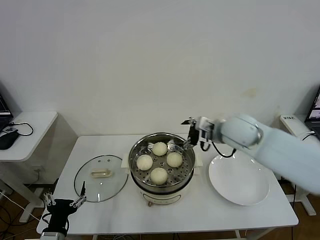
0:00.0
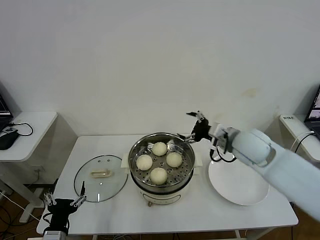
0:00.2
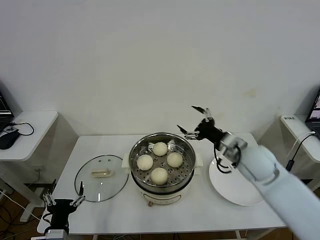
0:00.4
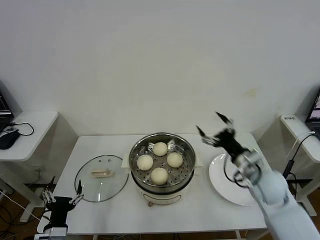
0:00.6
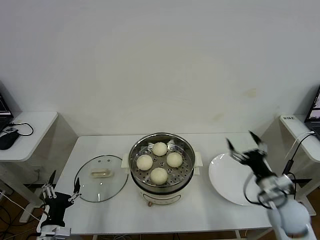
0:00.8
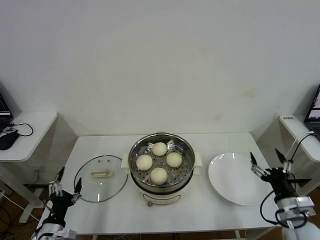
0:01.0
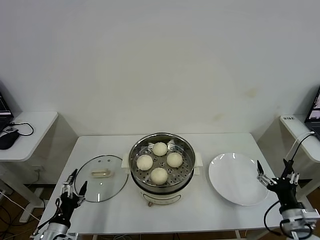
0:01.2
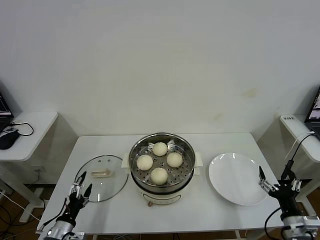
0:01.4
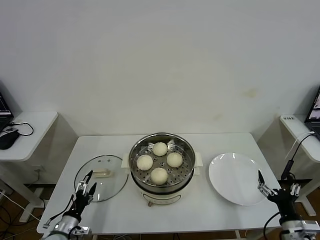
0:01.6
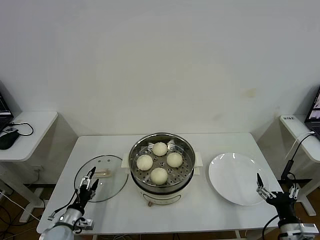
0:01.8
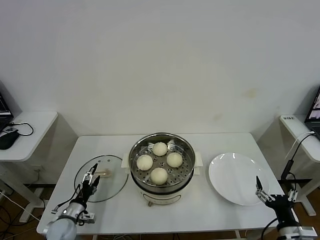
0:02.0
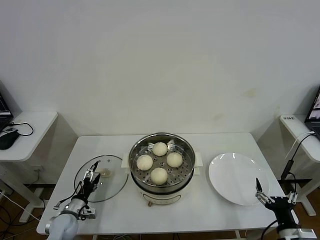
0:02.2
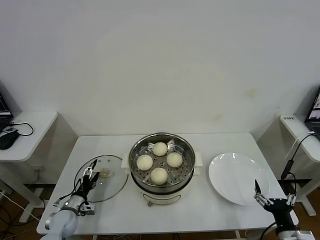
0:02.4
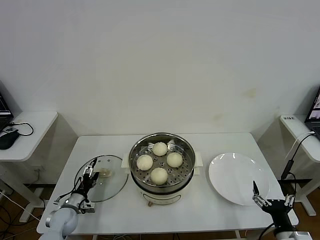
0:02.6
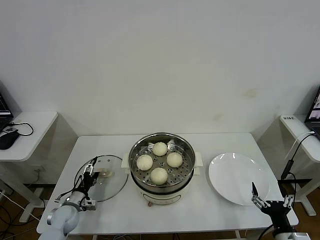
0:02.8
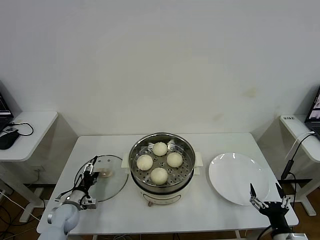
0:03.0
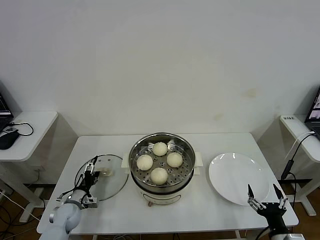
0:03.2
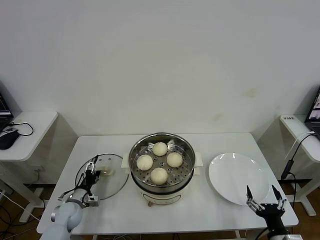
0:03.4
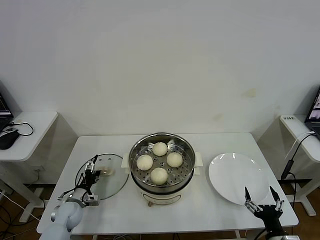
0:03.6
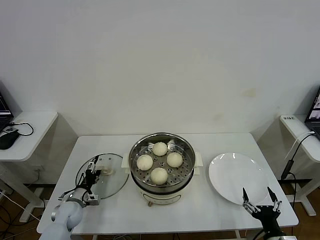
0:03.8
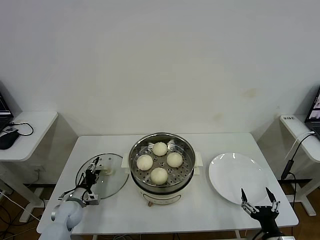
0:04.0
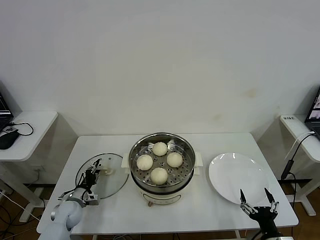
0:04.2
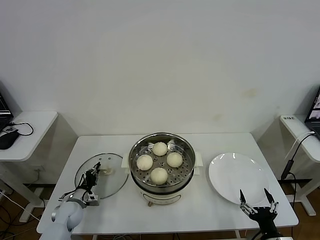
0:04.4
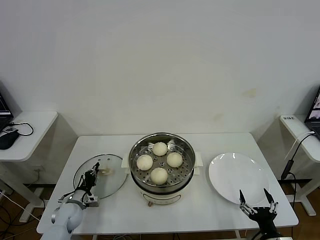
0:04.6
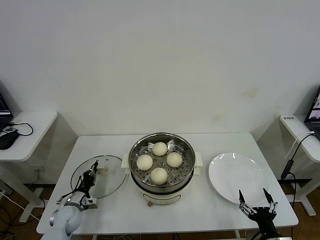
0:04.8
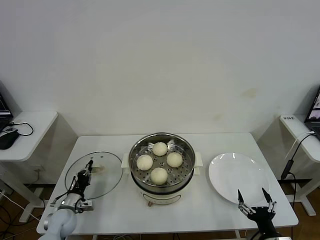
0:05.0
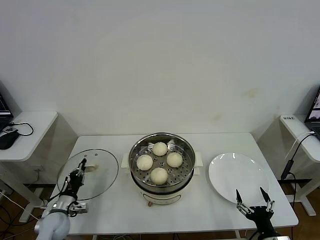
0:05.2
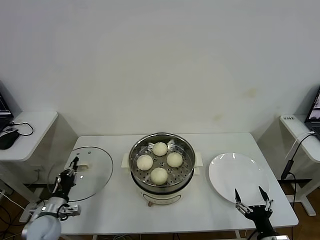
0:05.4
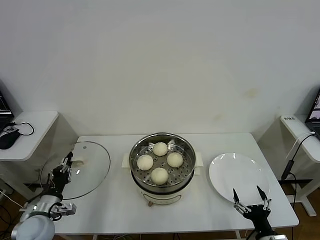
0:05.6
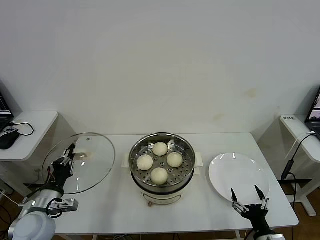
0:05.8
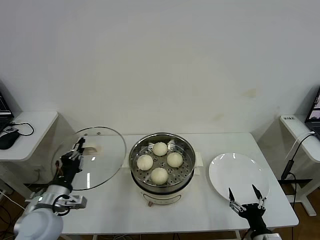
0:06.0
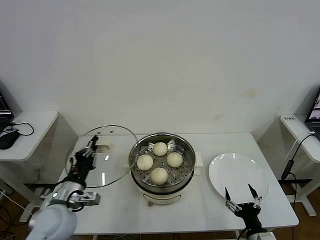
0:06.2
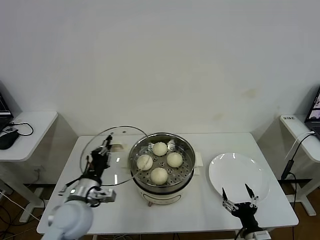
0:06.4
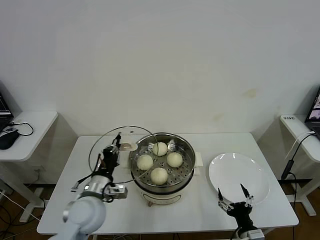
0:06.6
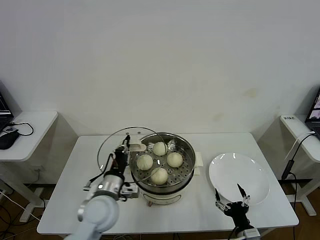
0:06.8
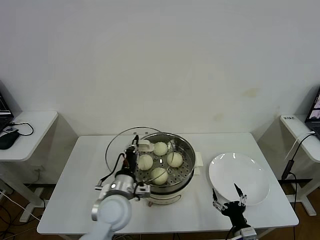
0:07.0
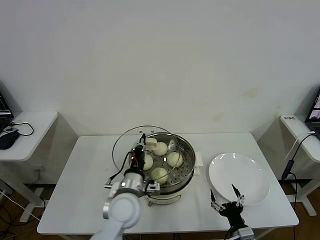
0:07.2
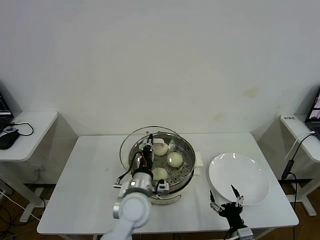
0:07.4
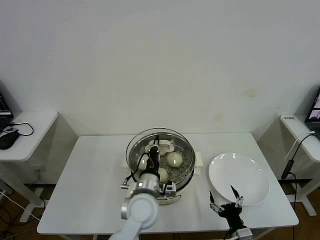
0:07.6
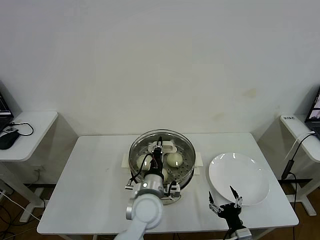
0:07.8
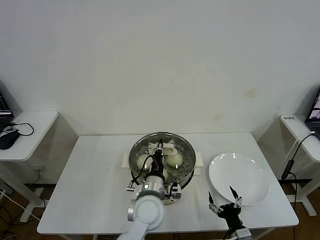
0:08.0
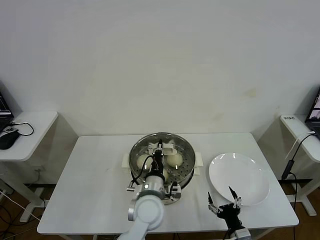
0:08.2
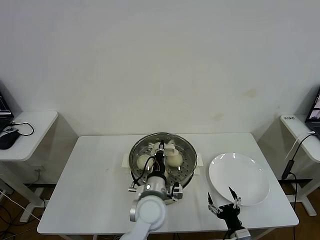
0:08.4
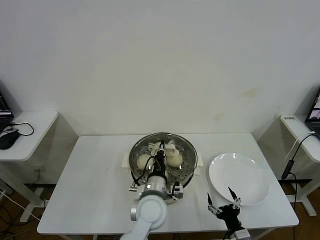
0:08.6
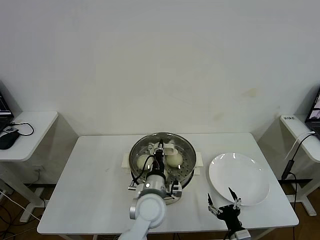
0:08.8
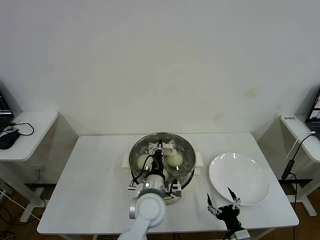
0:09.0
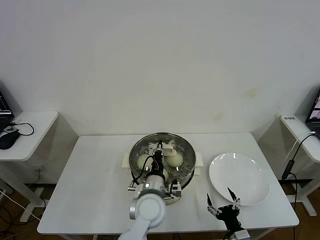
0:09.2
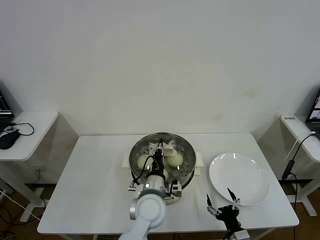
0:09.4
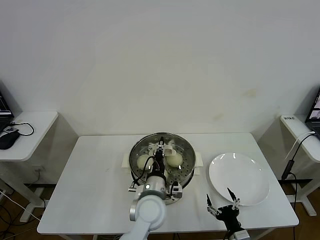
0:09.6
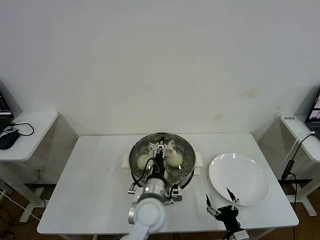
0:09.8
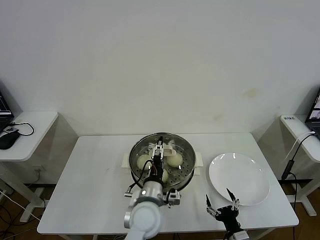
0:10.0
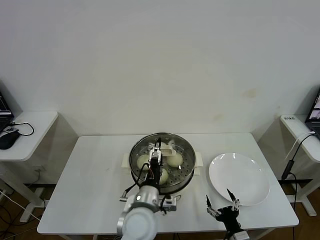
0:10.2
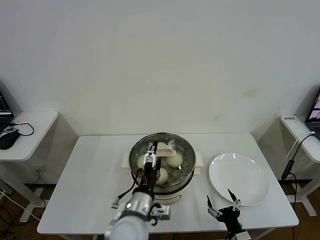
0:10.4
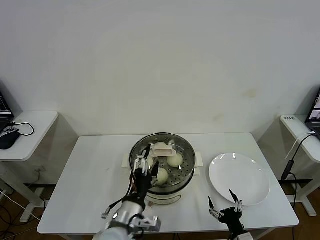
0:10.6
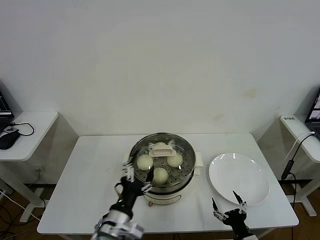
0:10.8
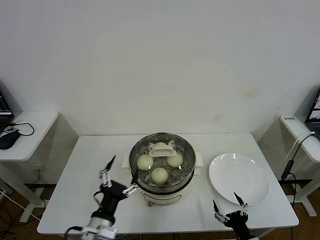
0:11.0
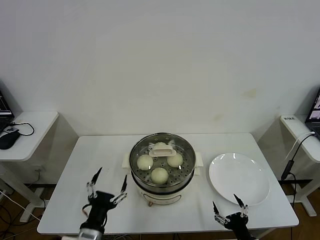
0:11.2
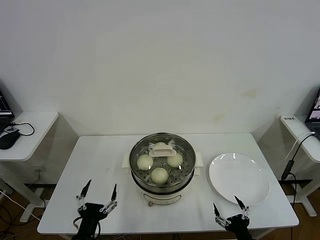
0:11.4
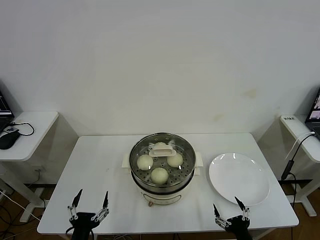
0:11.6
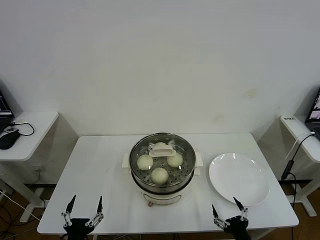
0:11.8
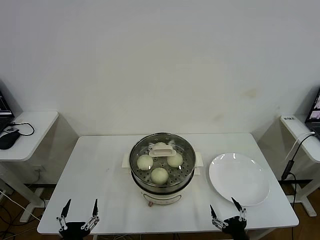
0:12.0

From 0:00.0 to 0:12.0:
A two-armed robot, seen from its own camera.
Task of the whole recording: take steamed baozi put them in steamer then cover it.
Step, from 0:00.0 to 0:04.6: Grasp the pot lid with left gripper.
Step, from 0:04.8 to 0:09.8: Place the pot lid on the steamer with left gripper.
From 0:00.0 to 0:01.6: The left gripper heads downward and forward, covering some 10 cm. The right gripper goes roughly 40 cm backward, downward and to the right.
From 0:01.6 to 0:03.0: The left gripper is displaced forward by approximately 10 cm.
From 0:03.0 to 0:04.4: The left gripper closes.
From 0:04.4 to 0:06.0: The left gripper heads upward and backward, covering about 20 cm.
From 0:06.0 to 0:07.6: The right gripper travels to the left by some 5 cm; the left gripper shifts some 25 cm to the right.
From 0:07.6 to 0:09.0: The grippers make only small movements.
From 0:09.0 to 0:10.4: The left gripper shifts approximately 5 cm backward, and opens.
From 0:10.4 to 0:12.0: The left gripper heads to the left, backward and downward, covering some 25 cm. Meanwhile the right gripper changes place by about 5 cm.
